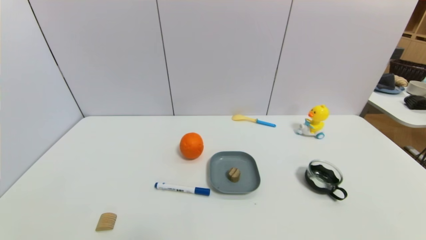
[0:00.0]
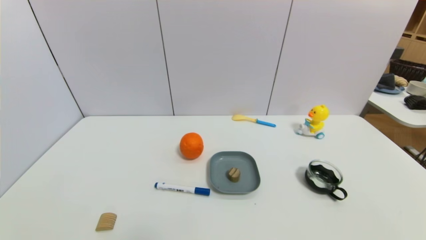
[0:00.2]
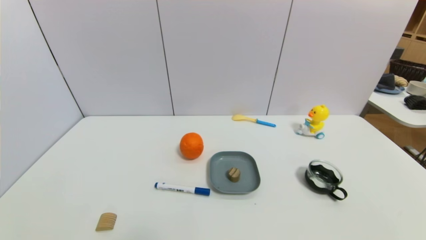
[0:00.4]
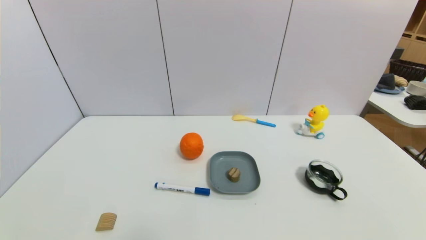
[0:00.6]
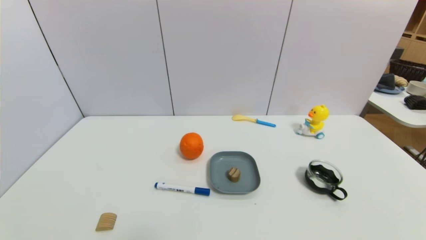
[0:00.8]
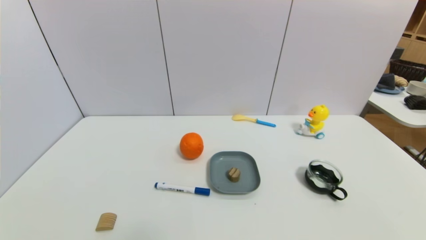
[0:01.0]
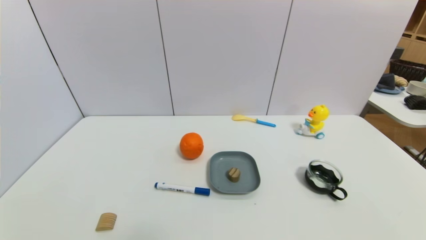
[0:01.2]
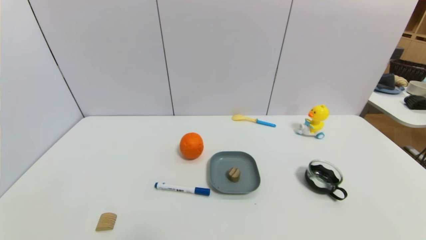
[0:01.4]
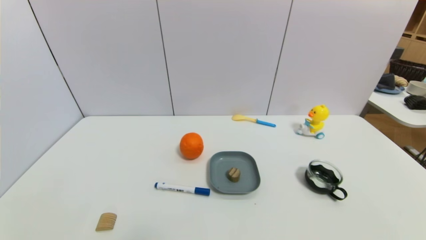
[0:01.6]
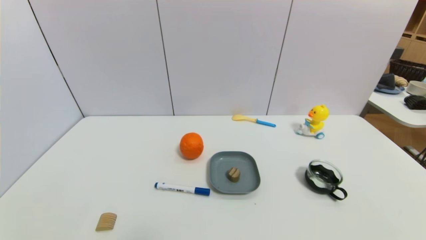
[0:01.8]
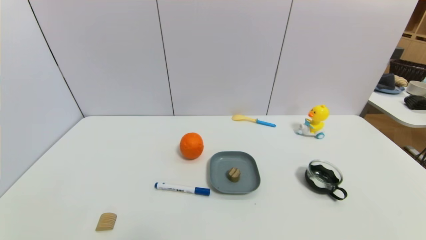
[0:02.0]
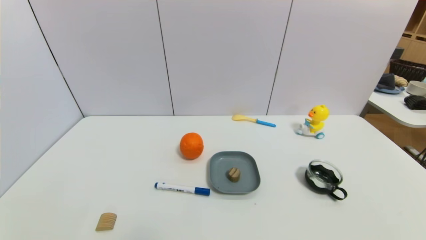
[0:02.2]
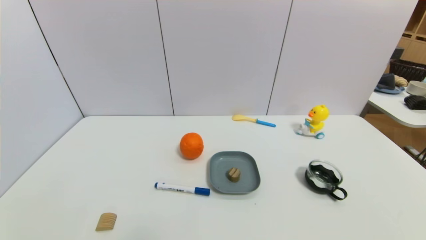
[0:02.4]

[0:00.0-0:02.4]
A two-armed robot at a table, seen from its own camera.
Task of the whole recording: use a gripper to pick the target object and place on the dish.
0:00.0 to 0:02.4: The two grippers keep their place.
